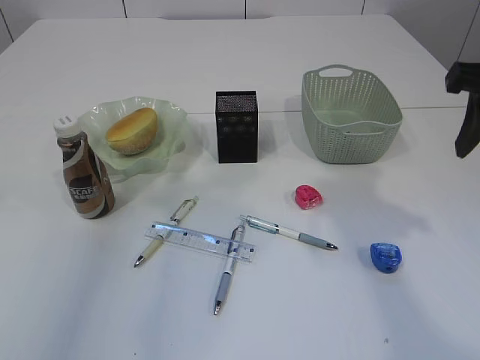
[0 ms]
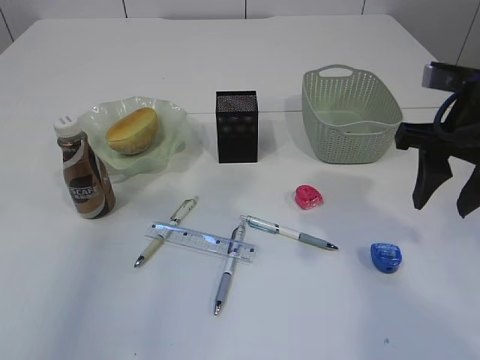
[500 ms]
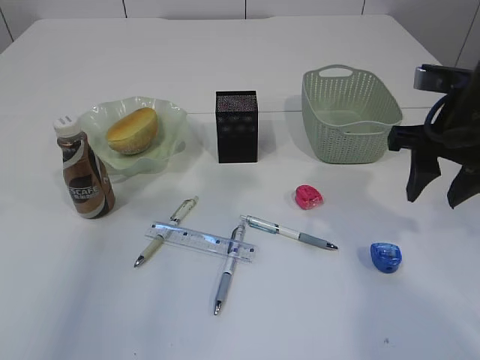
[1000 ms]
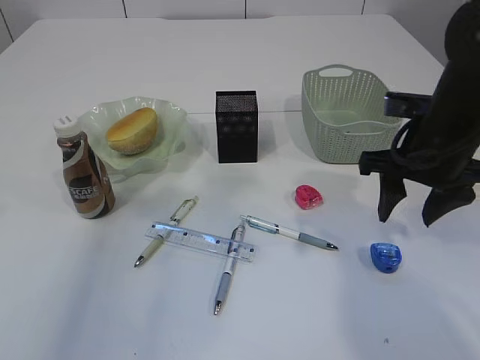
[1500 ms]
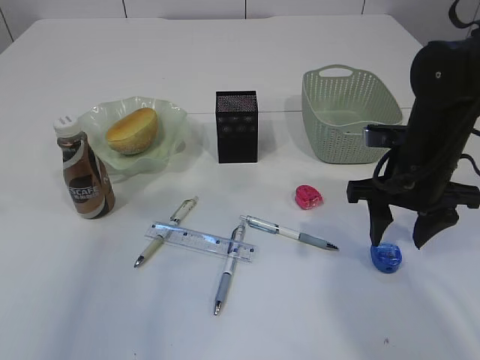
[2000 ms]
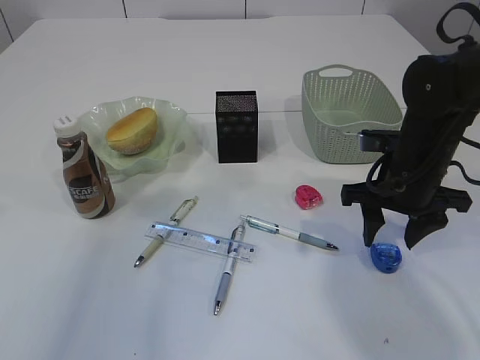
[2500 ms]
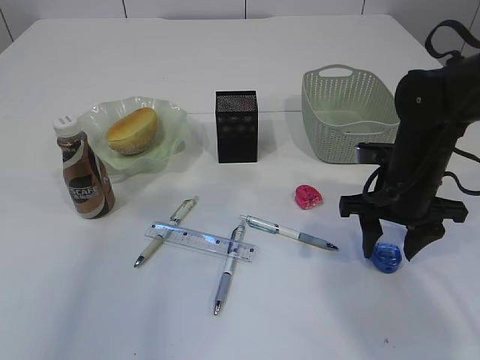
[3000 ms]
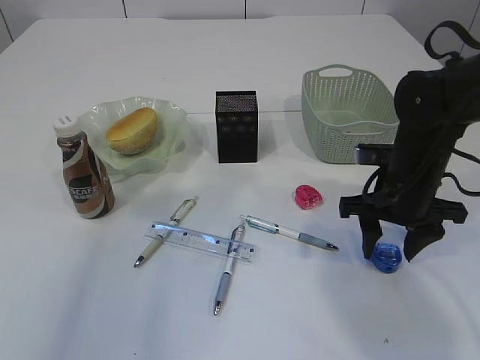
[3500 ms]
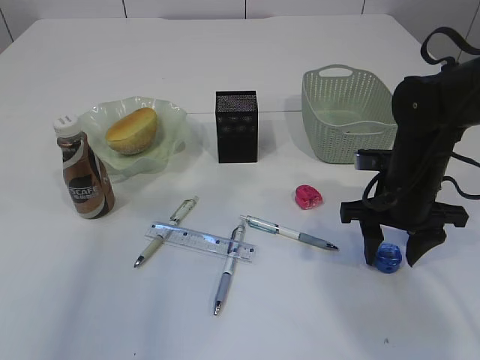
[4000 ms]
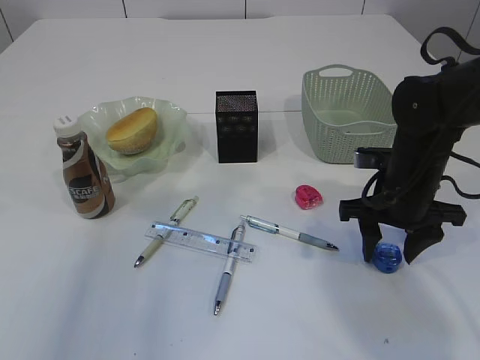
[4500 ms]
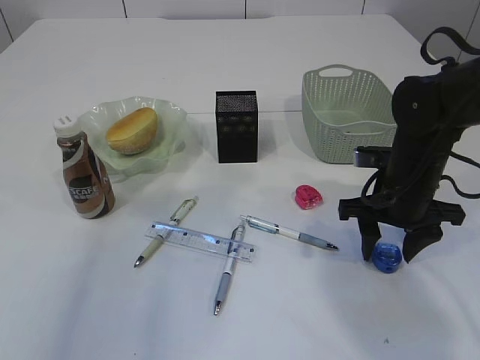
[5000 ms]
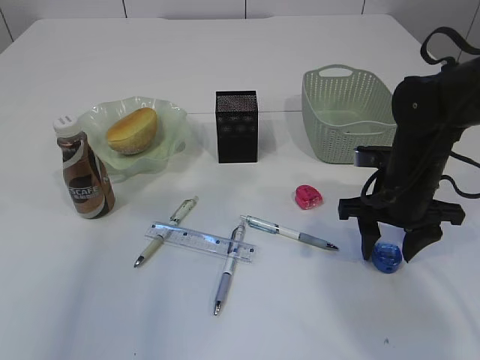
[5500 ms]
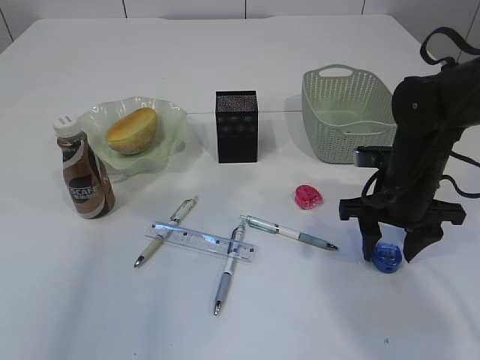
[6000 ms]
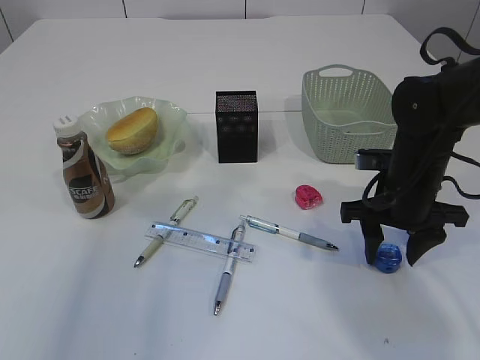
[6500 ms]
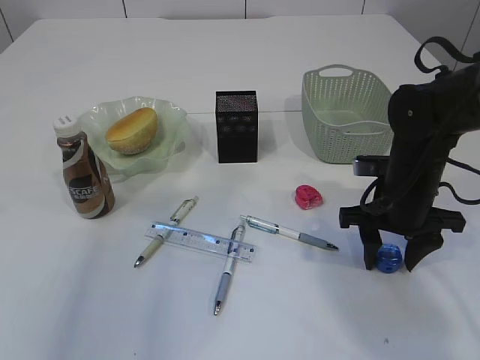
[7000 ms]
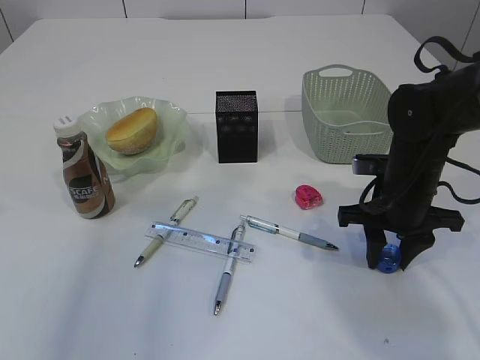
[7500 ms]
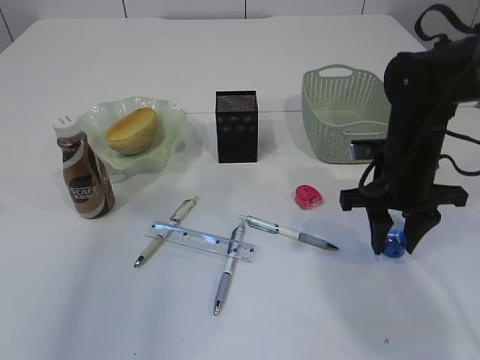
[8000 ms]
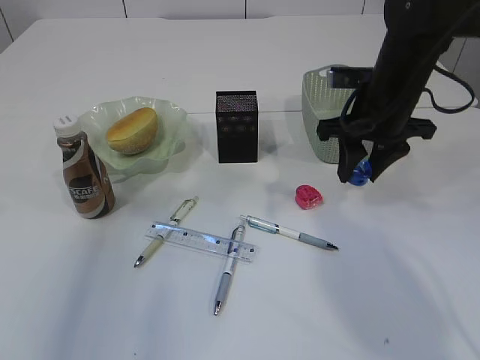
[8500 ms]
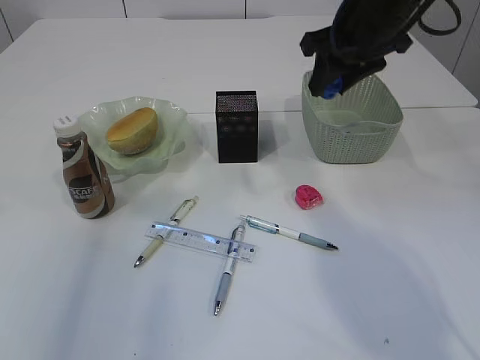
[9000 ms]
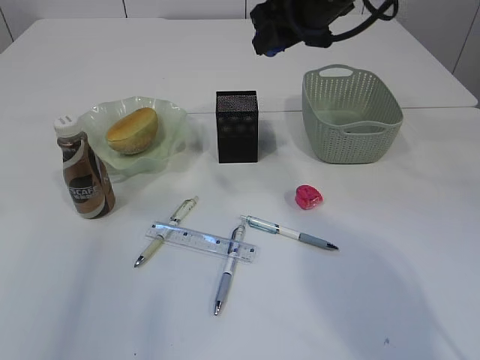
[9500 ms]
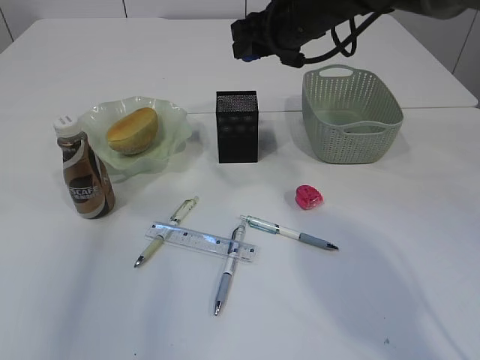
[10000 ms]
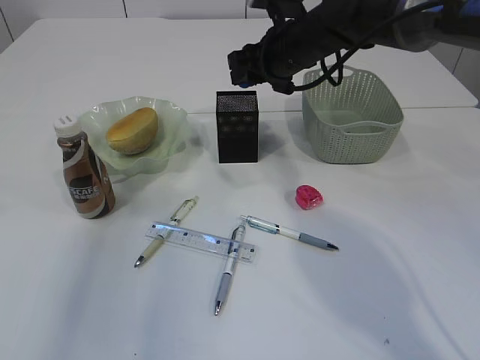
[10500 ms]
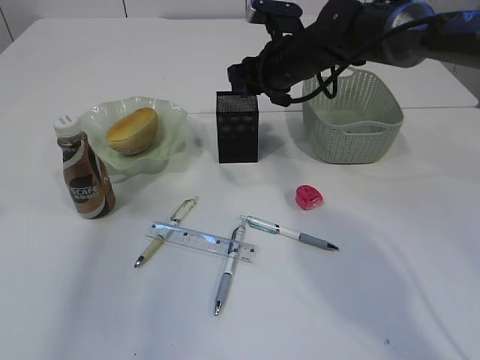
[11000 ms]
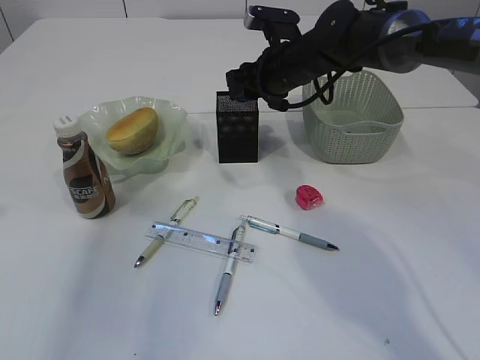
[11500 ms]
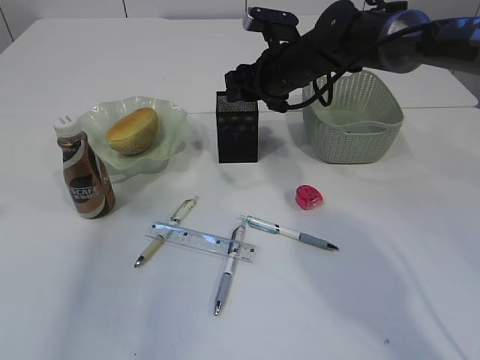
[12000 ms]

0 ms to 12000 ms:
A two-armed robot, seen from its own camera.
Step, 0 ms to 8500 ms: Pick up the red pencil sharpener.
0 ms to 2000 ms: The right gripper heads downward, covering roughly 15 cm.
2000 ms to 4000 ms: The grippers make only small movements.
4000 ms to 6000 ms: The two grippers keep their place.
6000 ms to 8000 ms: The grippers make only small movements.
8000 ms to 10000 ms: The right gripper travels upward, forward and to the left by approximately 20 cm.
10000 ms to 12000 ms: The right gripper goes about 10 cm downward.

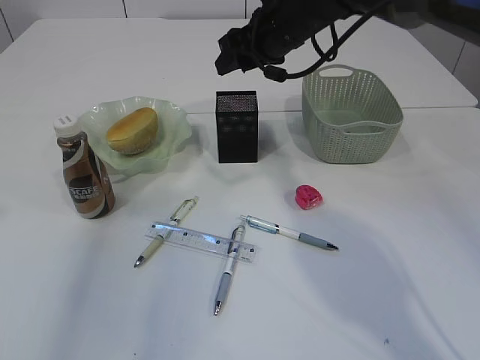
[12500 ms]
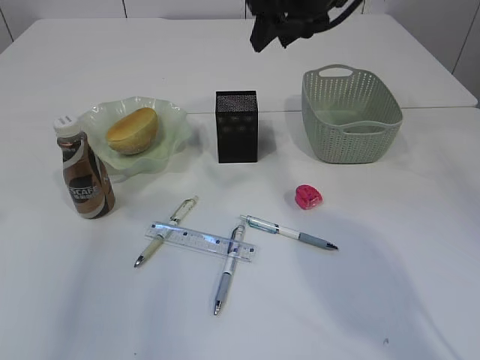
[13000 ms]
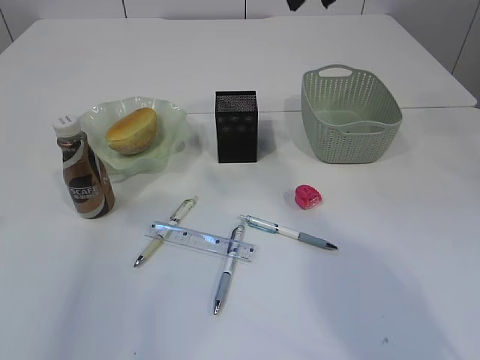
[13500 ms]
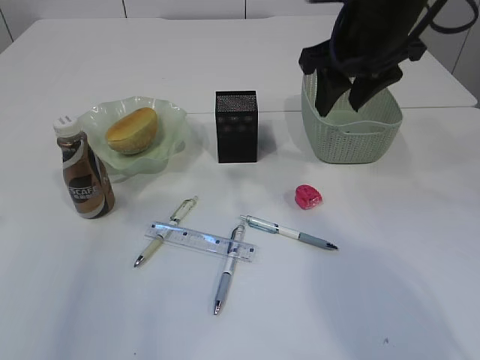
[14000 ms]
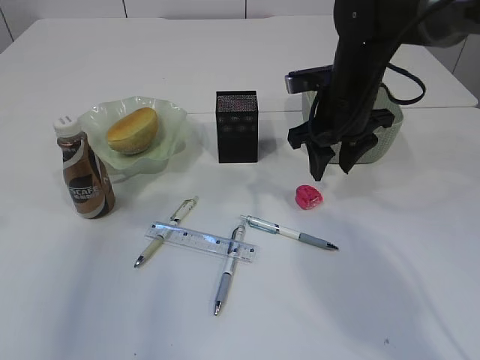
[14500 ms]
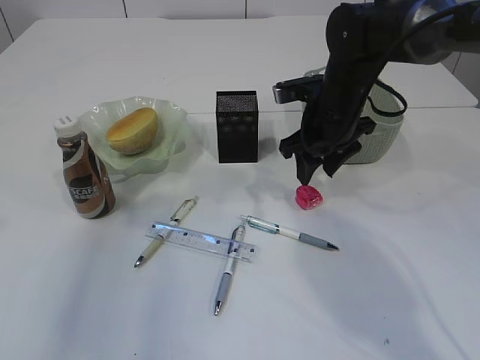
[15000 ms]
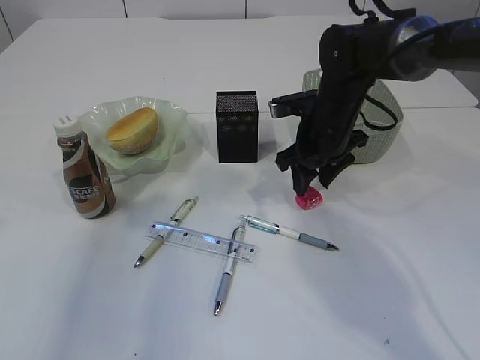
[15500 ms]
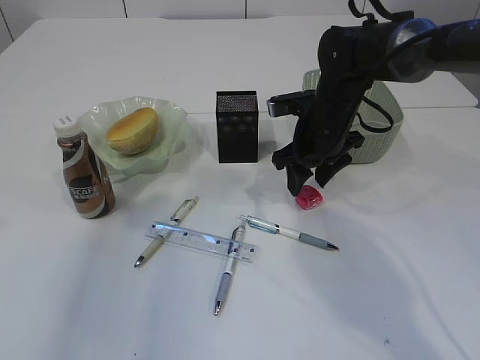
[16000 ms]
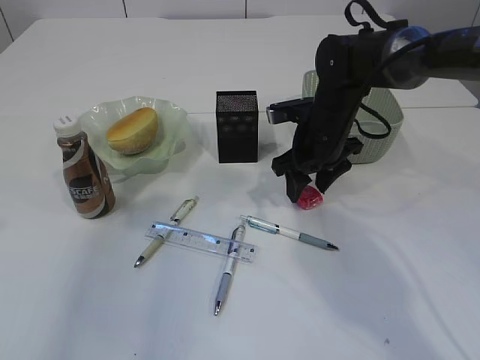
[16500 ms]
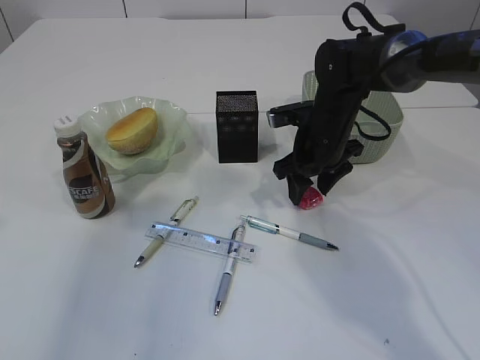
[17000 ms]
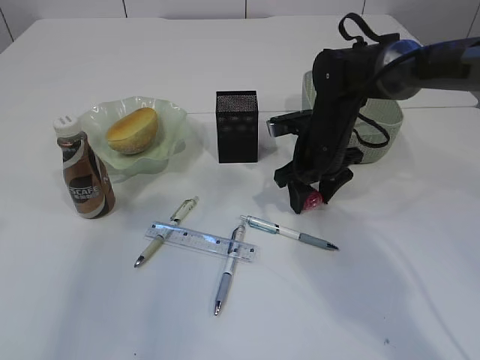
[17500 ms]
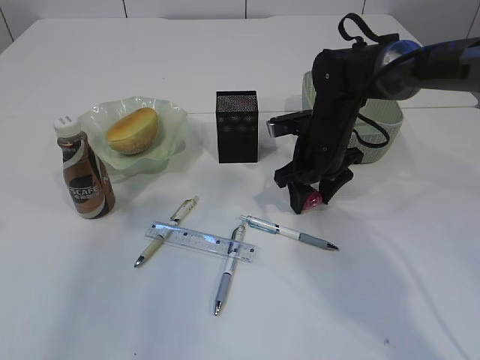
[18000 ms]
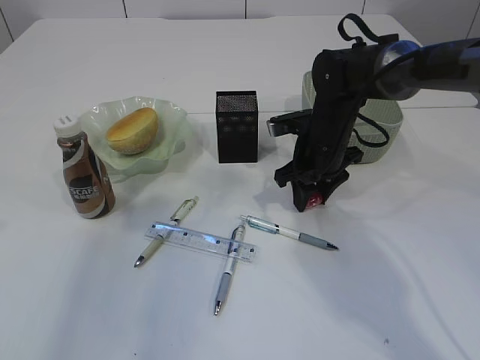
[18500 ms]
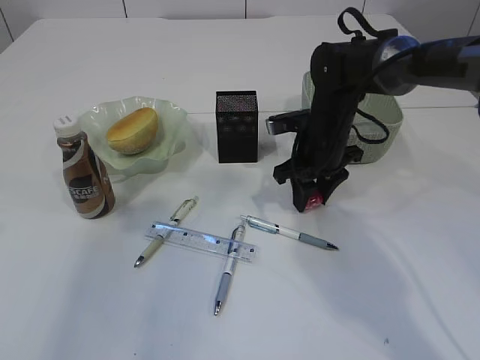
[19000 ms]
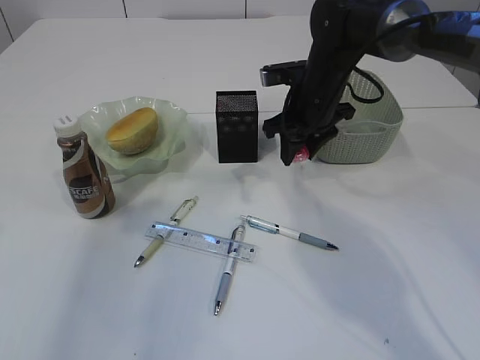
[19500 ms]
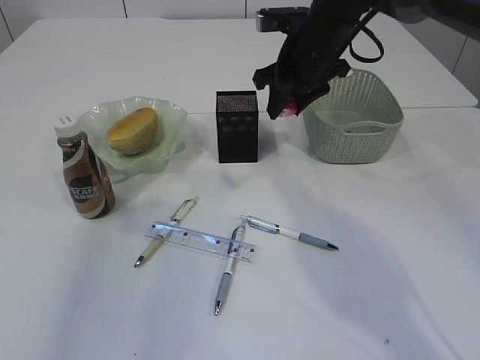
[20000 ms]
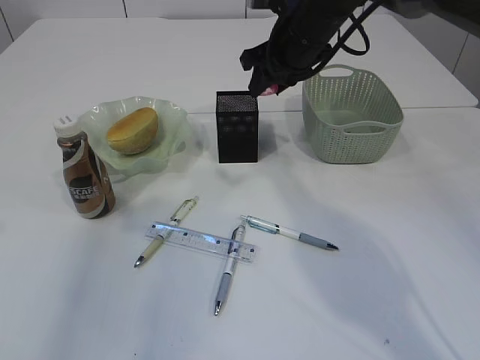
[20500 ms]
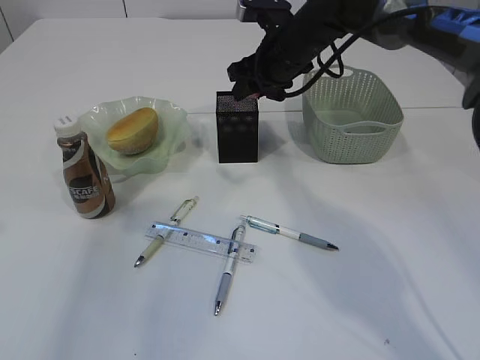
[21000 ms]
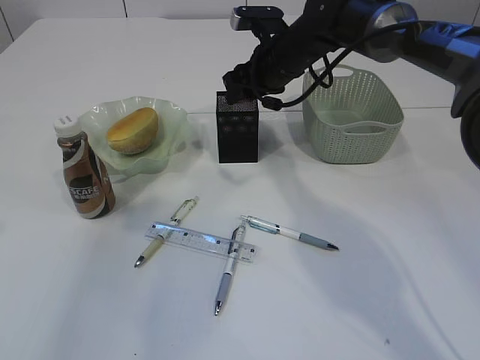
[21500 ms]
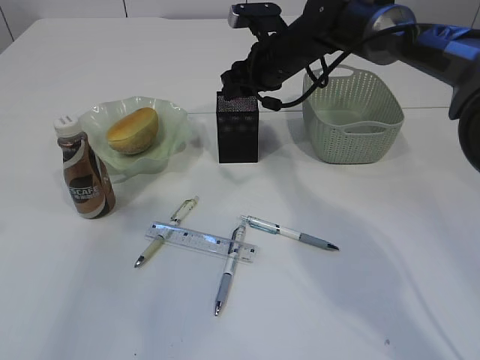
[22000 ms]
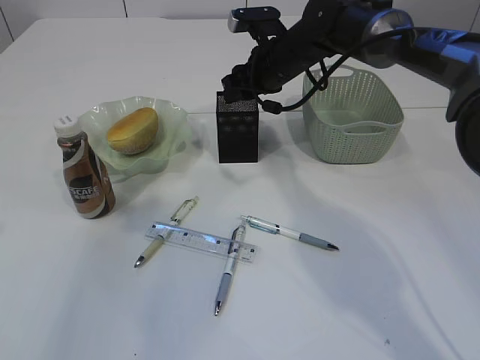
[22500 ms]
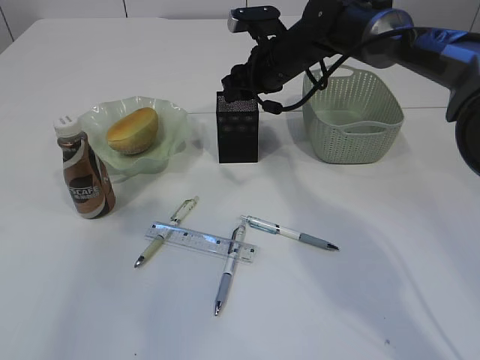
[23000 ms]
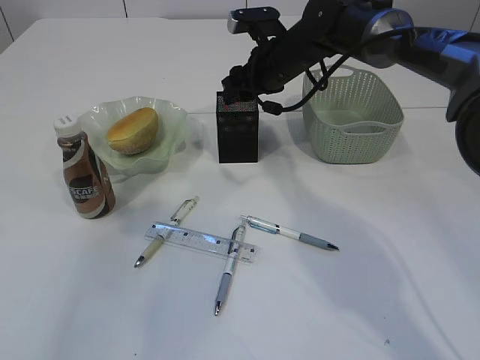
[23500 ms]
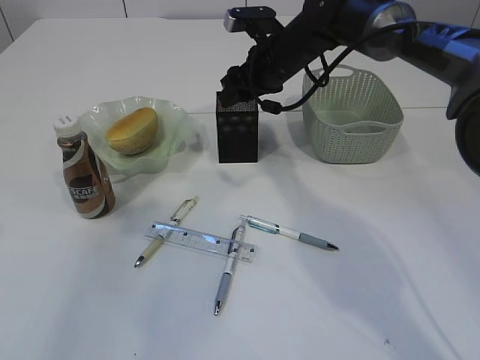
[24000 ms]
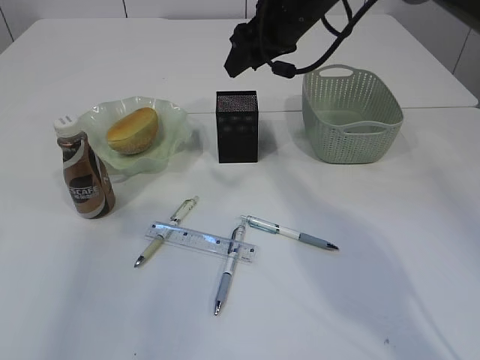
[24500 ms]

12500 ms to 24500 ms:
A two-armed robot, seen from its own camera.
Step, 13000 ms to 19500 ms: Pick up the blue pencil sharpener.
Step, 20000 ms to 24500 ms: Place the blue pencil sharpener into the pen holder.
12500 ms to 14500 ms: The right gripper travels backward and to the right by about 10 cm, and moves some 15 cm upward and comes back.
14500 ms to 16500 ms: The right gripper moves downward, about 5 cm.
16500 ms to 18500 ms: The grippers make only small movements.
18500 ms to 20500 ms: The right gripper heads upward, covering roughly 15 cm.
20500 ms to 22500 ms: The right gripper is displaced downward by roughly 5 cm.
22500 ms to 24500 ms: The right gripper shifts approximately 5 cm upward.

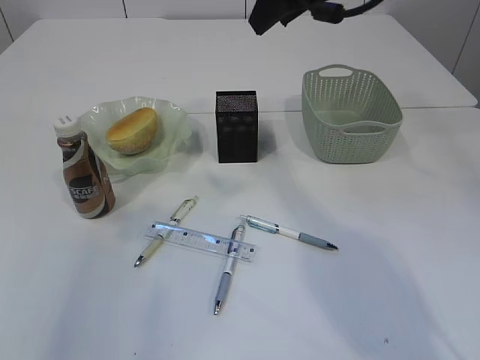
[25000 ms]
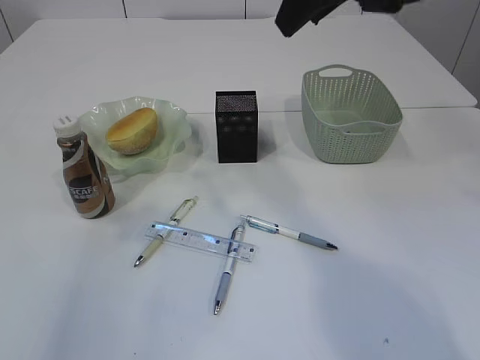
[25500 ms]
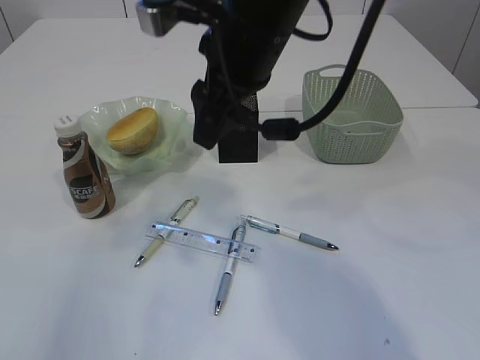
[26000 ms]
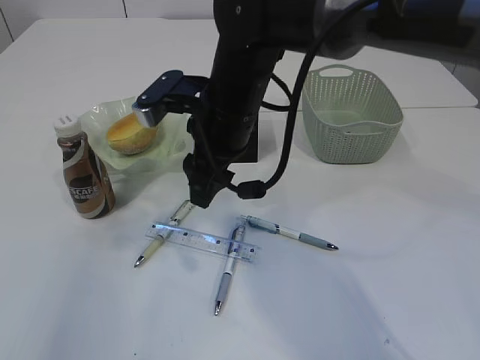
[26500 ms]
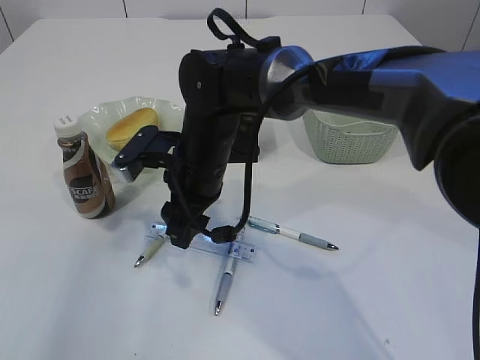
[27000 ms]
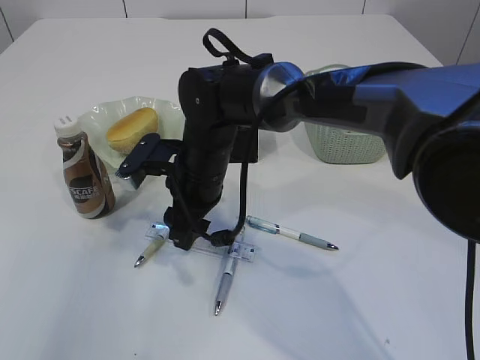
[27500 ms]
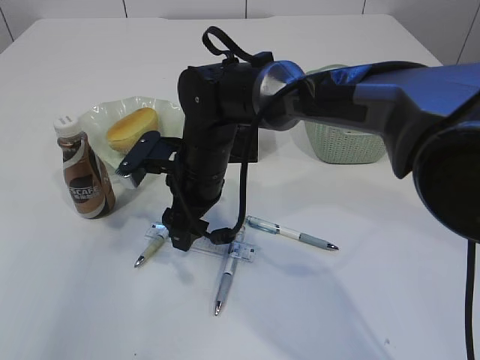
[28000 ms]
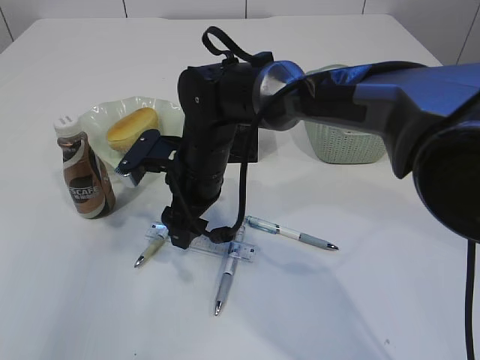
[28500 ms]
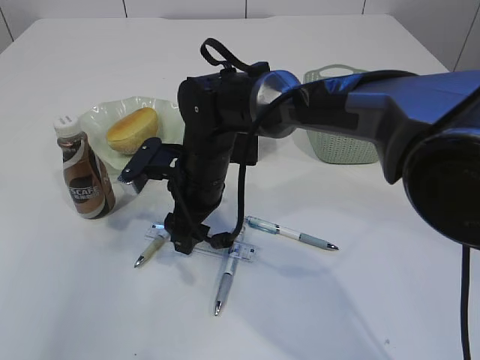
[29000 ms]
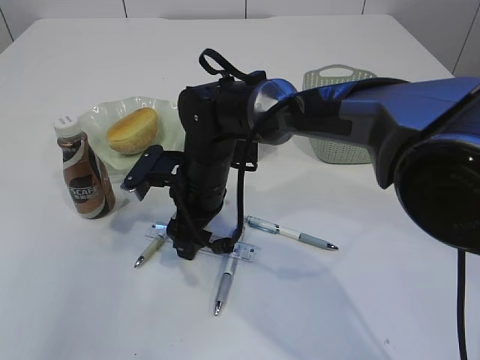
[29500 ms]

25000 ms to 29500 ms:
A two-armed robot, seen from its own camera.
25000 ms to 27000 ms: The right gripper shifts approximately 25 cm downward and to the left.
27000 ms to 29500 ms: The grippers stay close to where they were, moving slightly.
